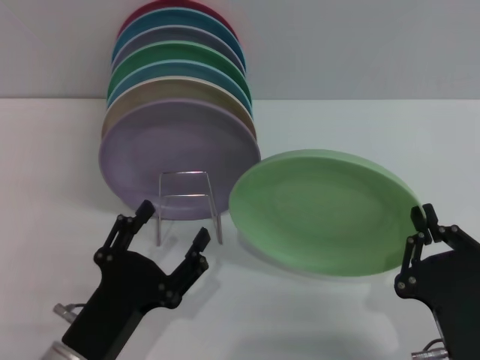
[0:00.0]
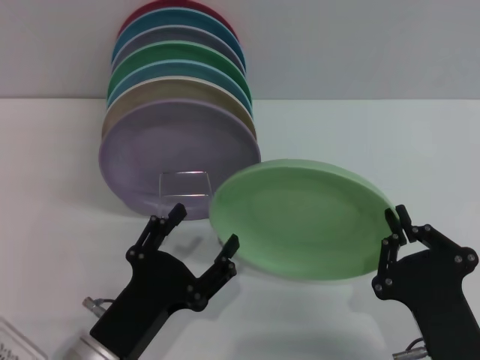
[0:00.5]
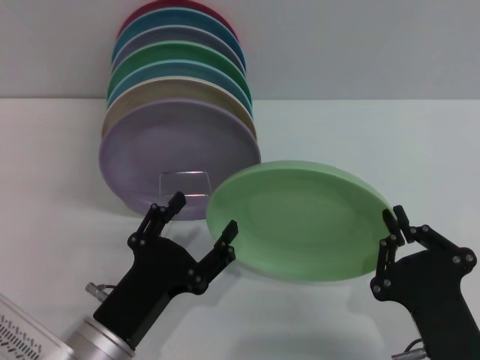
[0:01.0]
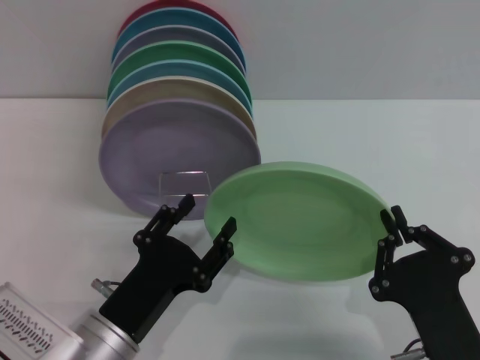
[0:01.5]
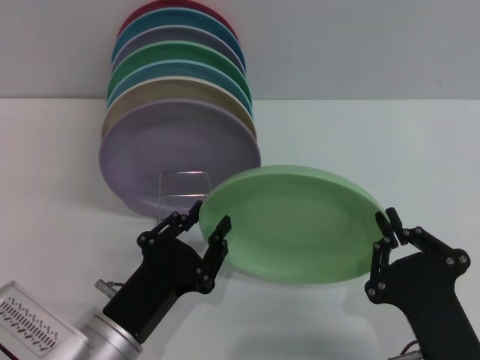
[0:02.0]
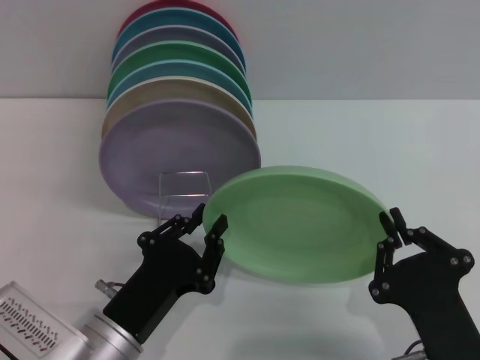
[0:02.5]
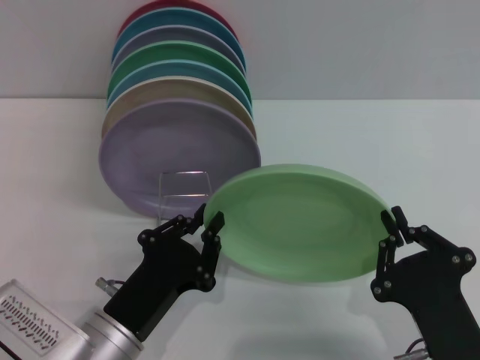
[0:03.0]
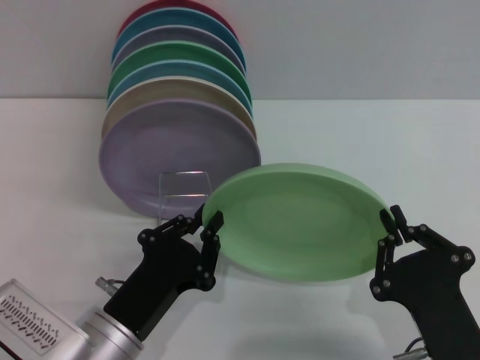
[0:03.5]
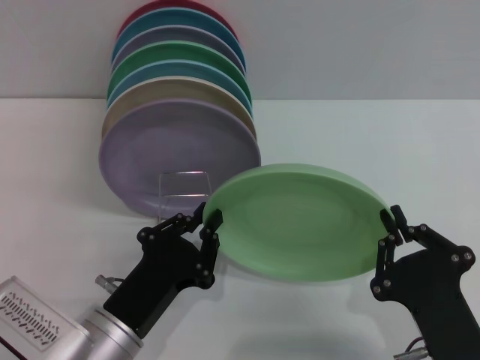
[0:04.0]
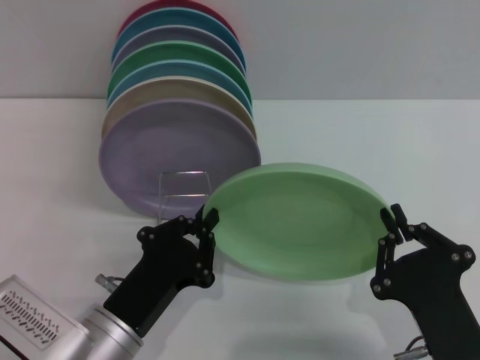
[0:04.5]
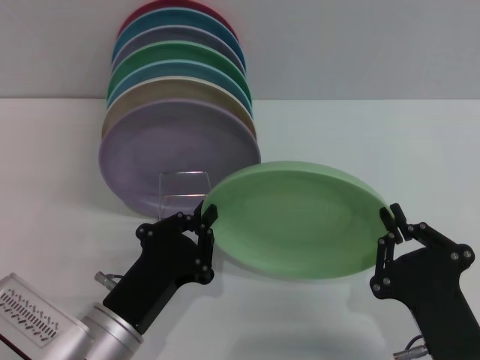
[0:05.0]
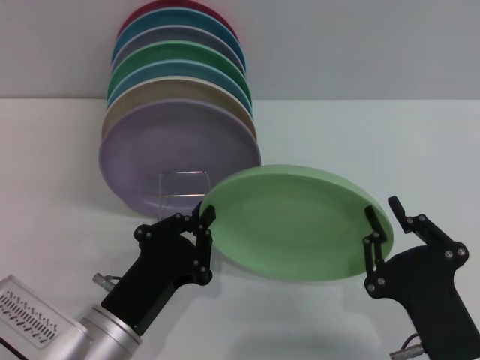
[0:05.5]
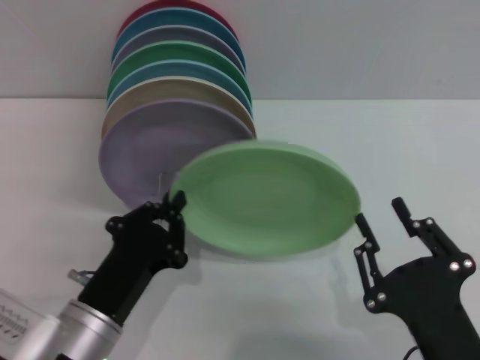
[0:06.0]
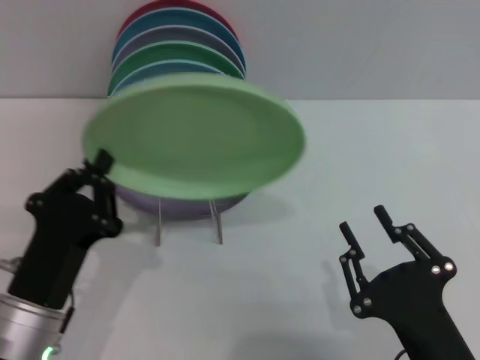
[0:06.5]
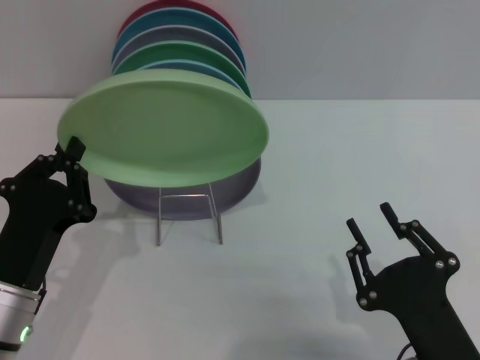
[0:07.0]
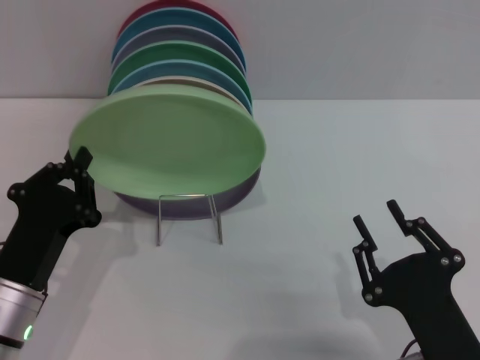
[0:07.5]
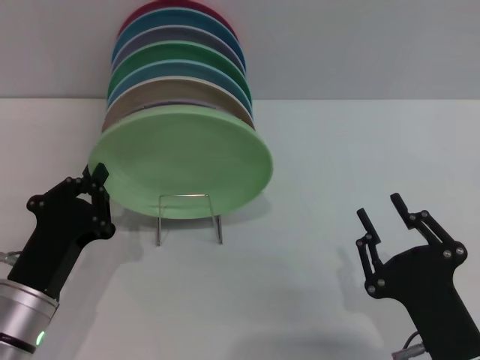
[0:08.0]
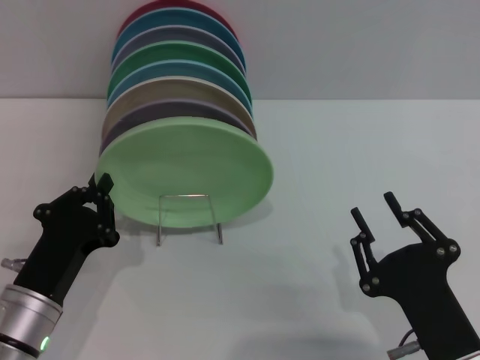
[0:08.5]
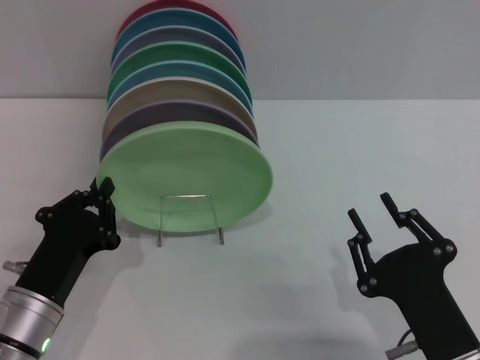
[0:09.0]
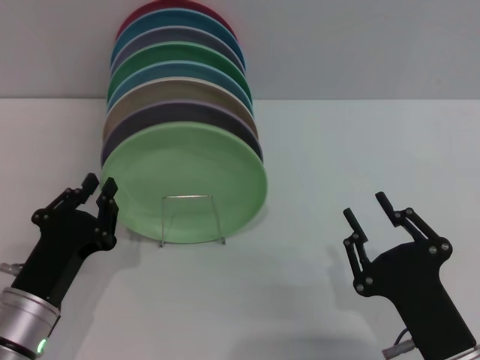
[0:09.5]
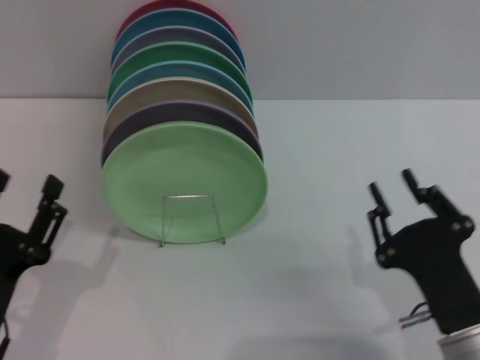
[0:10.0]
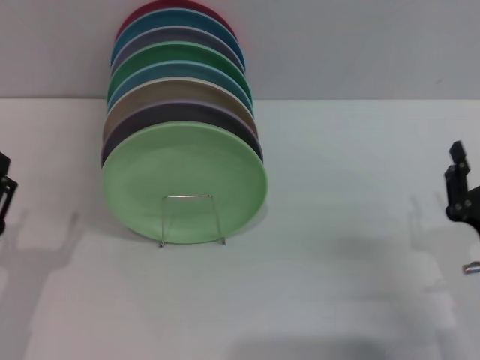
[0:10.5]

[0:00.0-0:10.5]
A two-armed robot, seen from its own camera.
Task of the whole recording: Grip the plate with one hand, pass it to the other, then set it on the shelf.
Step, 0:00.0 to 0:05.5: Pass the plate from the right gripper to the left gripper.
Step, 0:06.5 to 0:10.0: Place the plate on the shelf with the left gripper.
0:00.0 to 0:02.0: The left gripper closes its fingers.
0:02.0 to 0:04.0: The left gripper closes.
0:04.0 to 0:06.5: The left gripper shifts by about 5 cm. Meanwhile the right gripper opens up.
0:06.5 to 0:08.5: The grippers make only small movements.
0:08.5 to 0:10.5: The left gripper travels to the left by roughly 5 cm, and opens up; the right gripper heads to the right and forward, covering some 10 cm.
